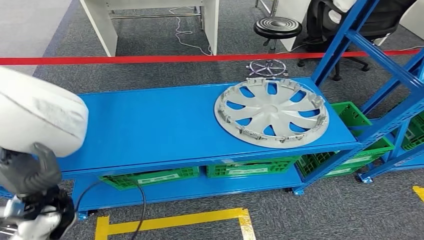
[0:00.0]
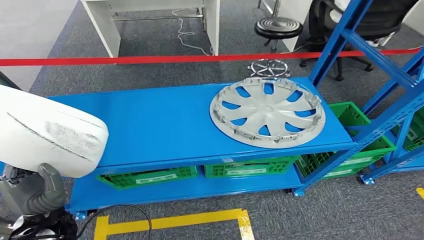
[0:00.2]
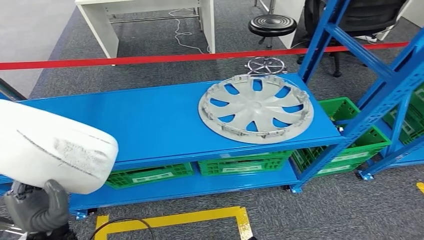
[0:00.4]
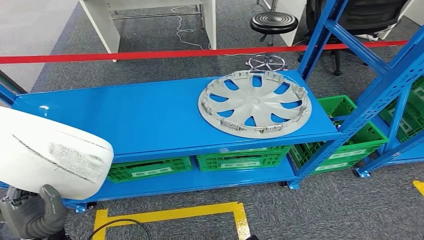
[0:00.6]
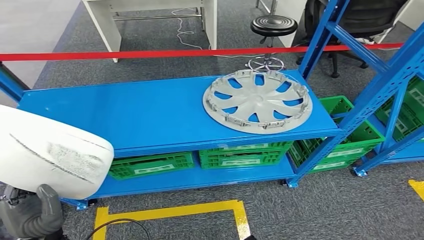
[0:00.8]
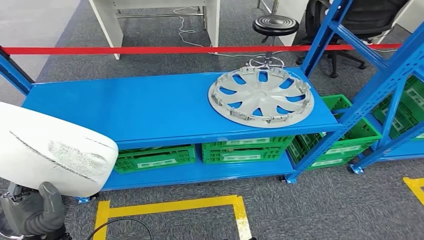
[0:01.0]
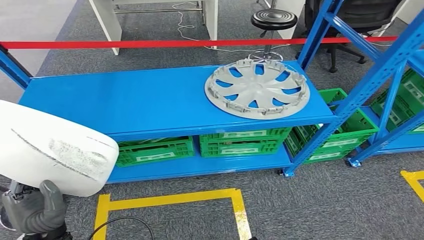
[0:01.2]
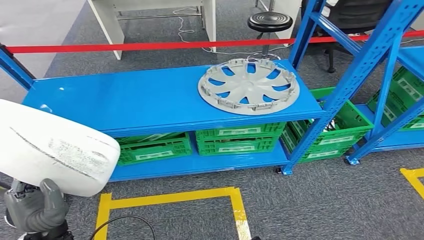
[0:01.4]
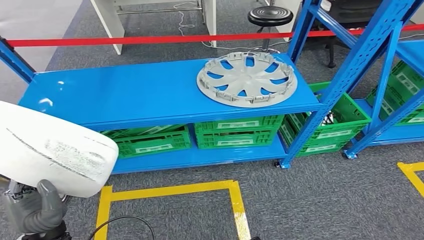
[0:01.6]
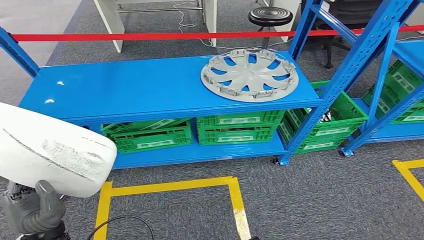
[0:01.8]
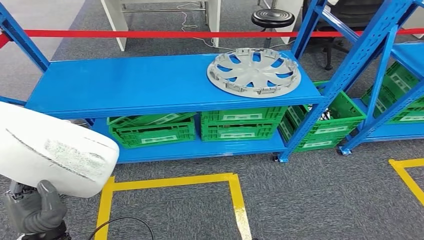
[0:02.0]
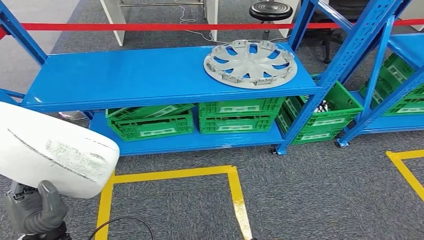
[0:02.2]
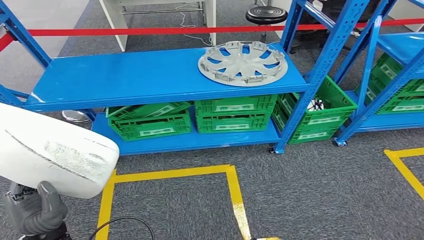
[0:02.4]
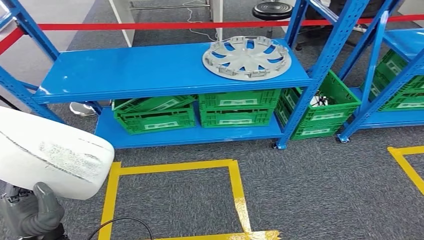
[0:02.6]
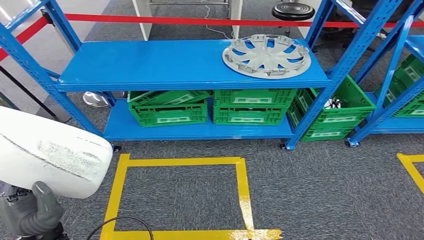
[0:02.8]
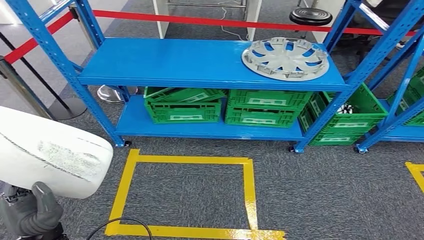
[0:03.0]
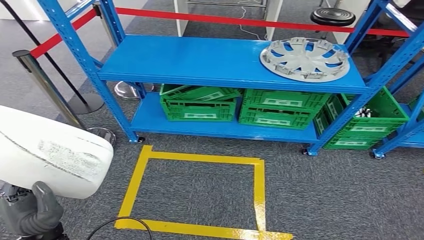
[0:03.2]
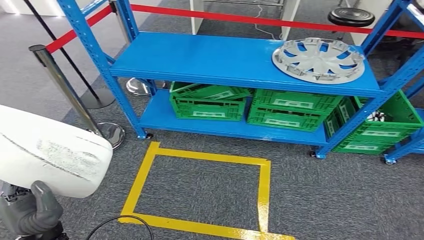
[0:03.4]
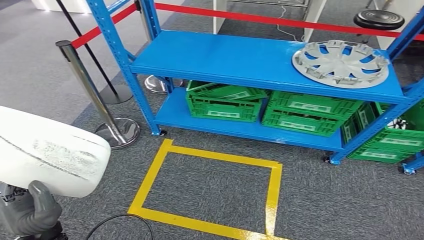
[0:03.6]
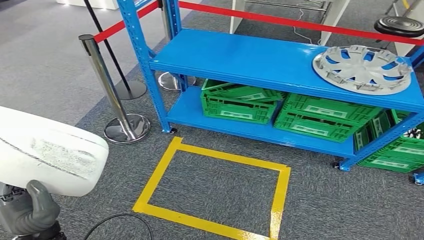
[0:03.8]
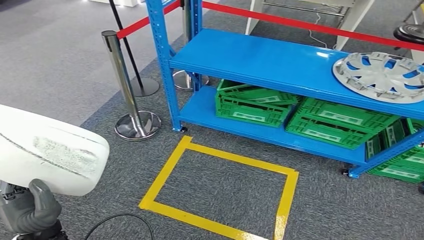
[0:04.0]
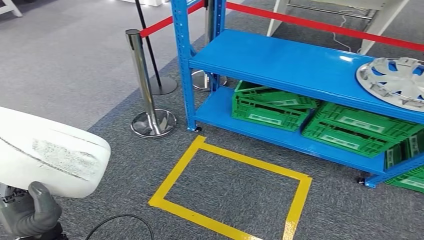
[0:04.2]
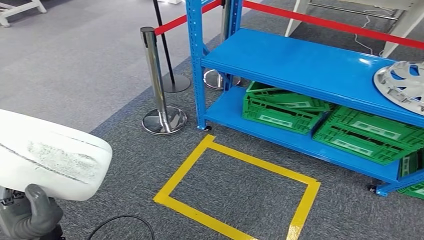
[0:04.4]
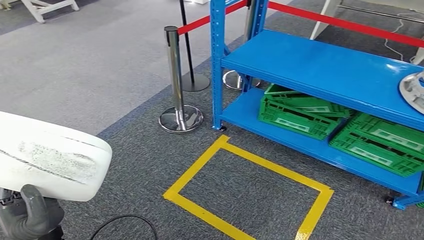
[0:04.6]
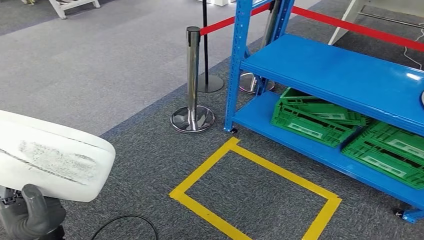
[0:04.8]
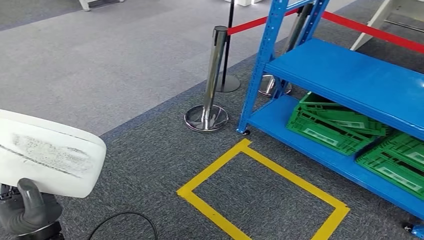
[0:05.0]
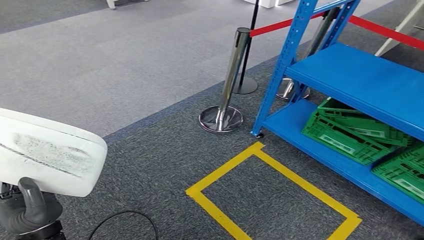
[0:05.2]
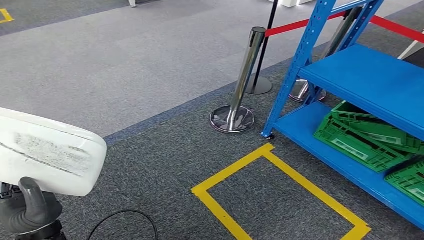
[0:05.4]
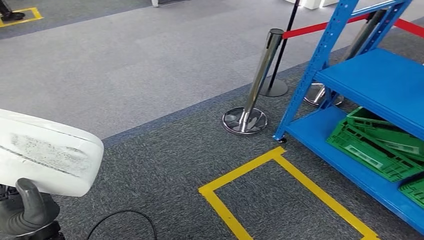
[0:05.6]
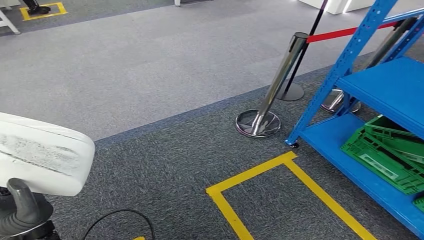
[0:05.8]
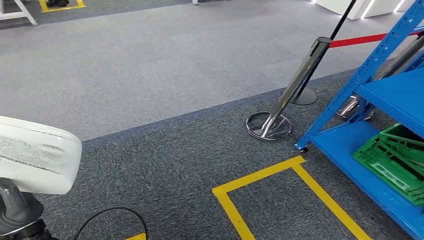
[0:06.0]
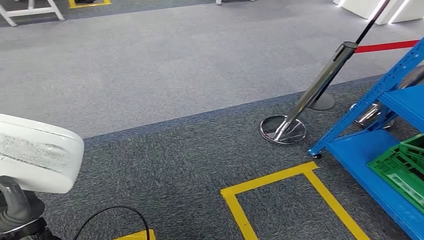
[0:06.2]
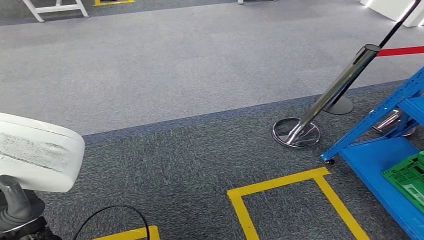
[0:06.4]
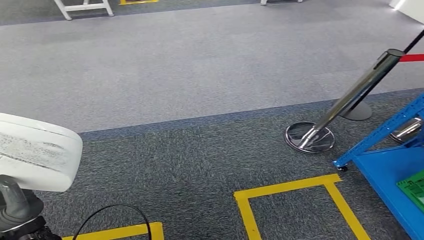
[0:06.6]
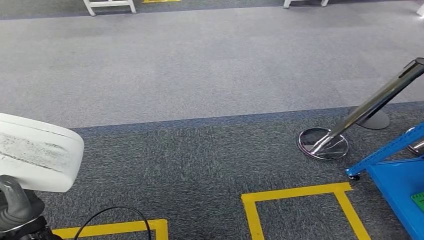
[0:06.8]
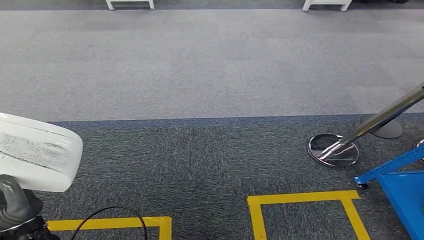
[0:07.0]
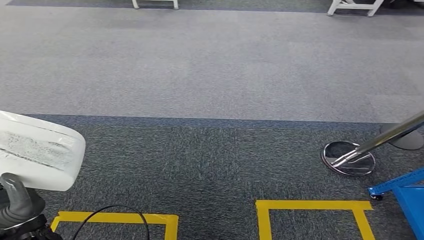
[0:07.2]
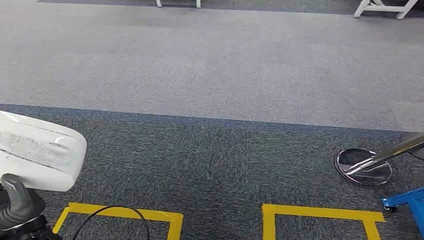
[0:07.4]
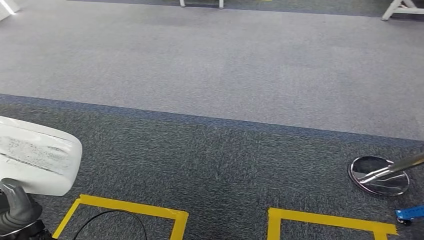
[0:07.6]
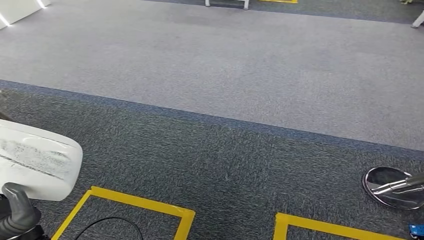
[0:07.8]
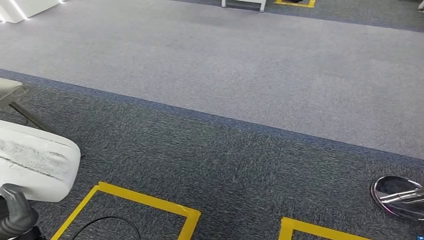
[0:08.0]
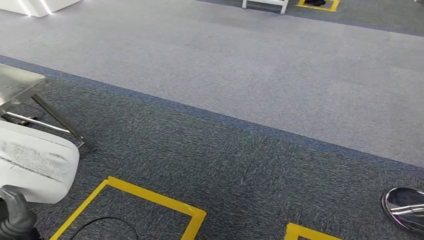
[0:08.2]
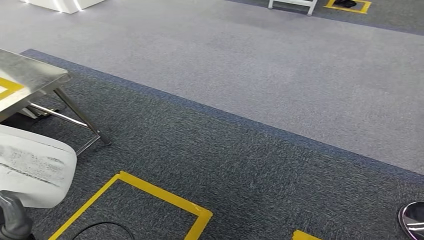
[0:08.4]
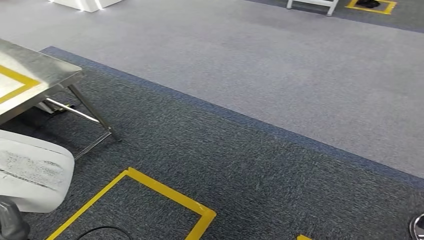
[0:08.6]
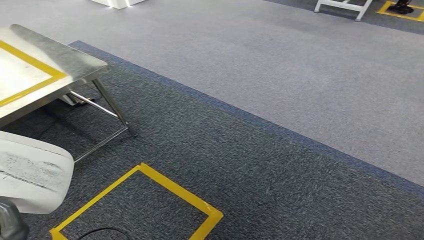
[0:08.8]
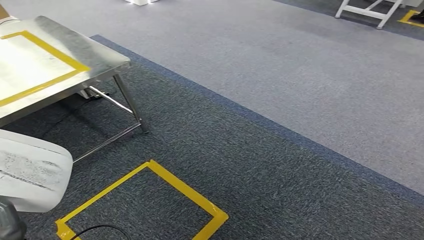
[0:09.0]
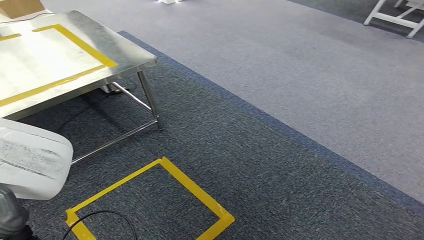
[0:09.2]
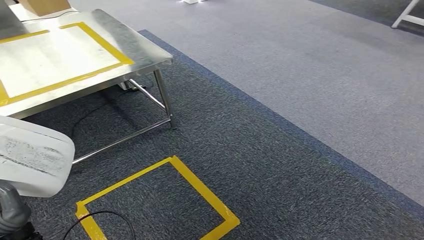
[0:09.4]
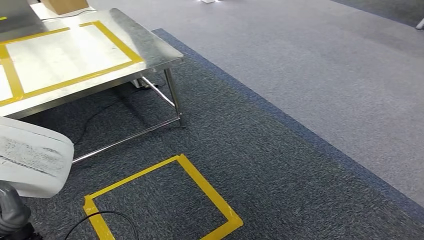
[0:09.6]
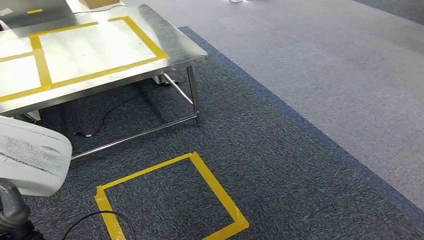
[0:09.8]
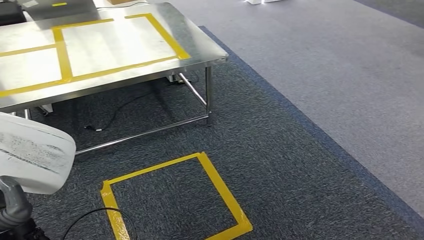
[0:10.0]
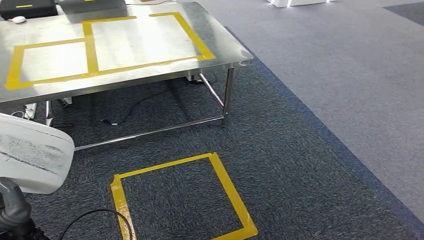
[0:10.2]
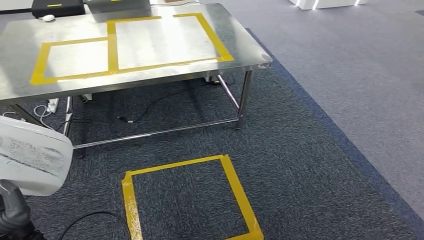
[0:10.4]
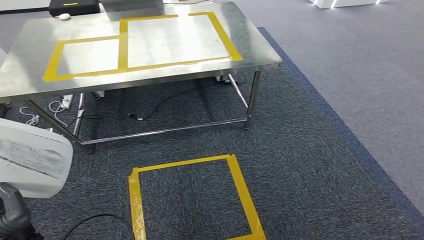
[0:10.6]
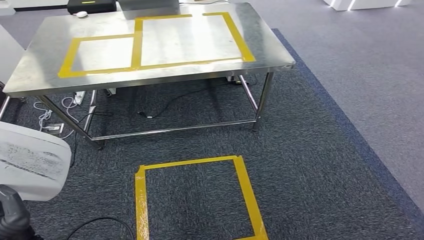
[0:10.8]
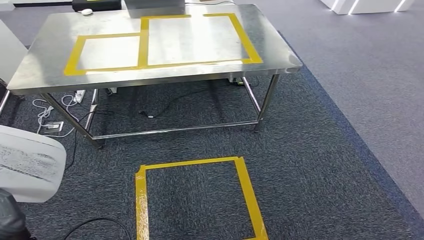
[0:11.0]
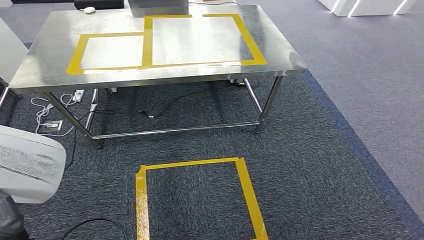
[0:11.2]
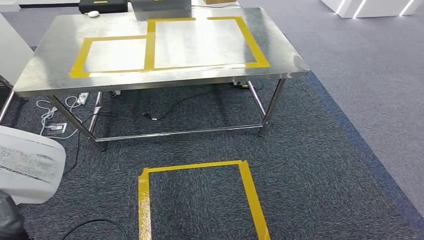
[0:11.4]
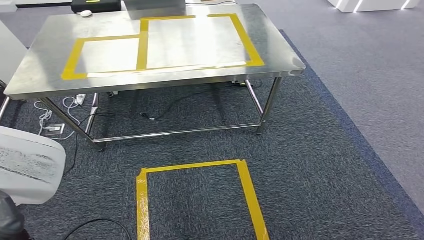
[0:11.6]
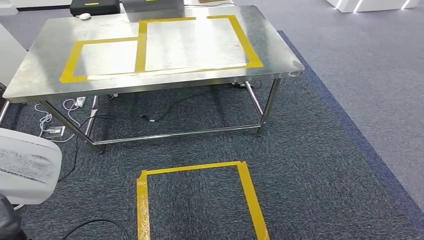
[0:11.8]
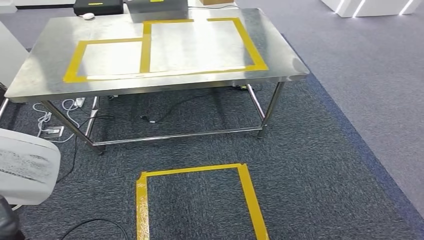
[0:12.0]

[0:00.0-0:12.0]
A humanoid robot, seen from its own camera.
Step, 0:00.0 to 0:02.0: Pick up the small component from the shelf.

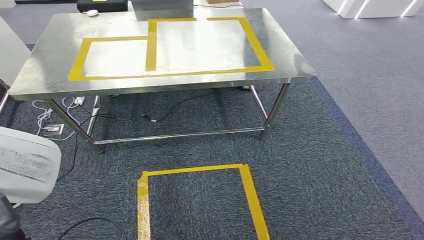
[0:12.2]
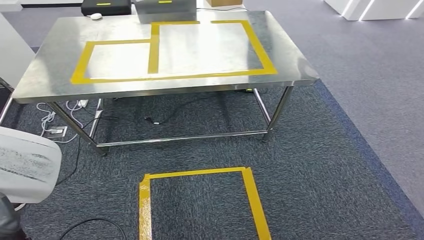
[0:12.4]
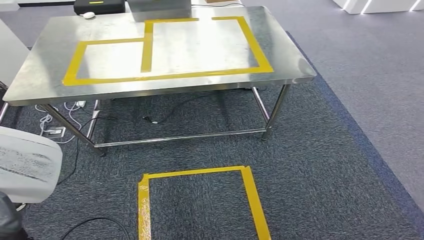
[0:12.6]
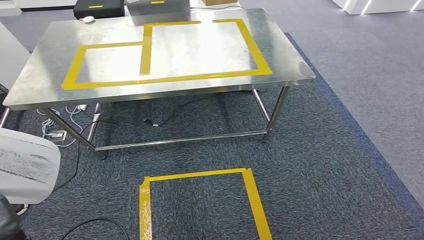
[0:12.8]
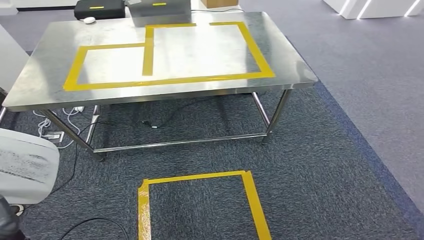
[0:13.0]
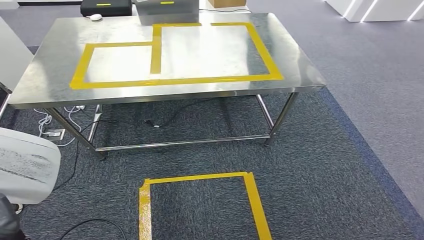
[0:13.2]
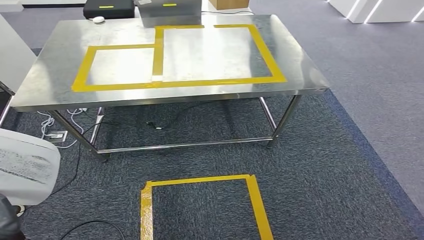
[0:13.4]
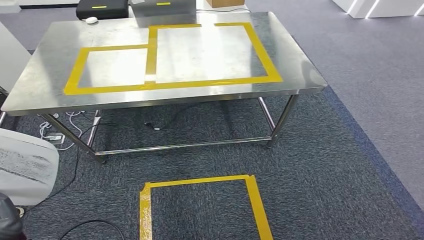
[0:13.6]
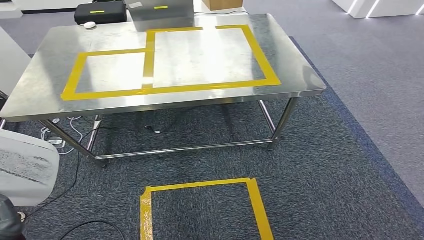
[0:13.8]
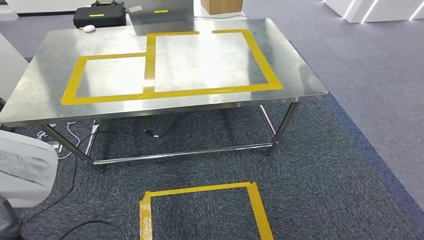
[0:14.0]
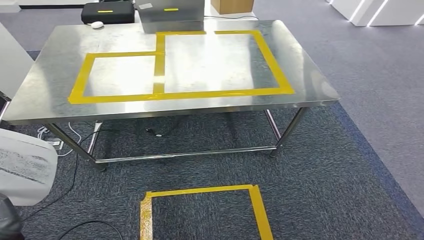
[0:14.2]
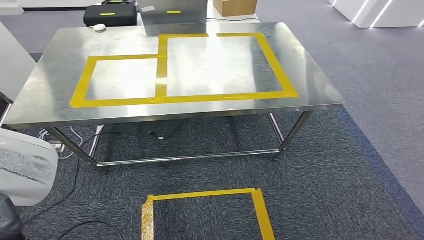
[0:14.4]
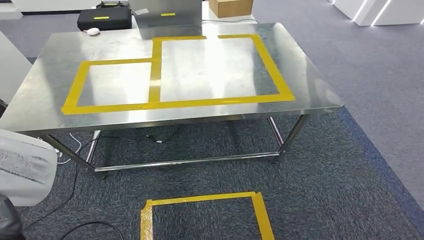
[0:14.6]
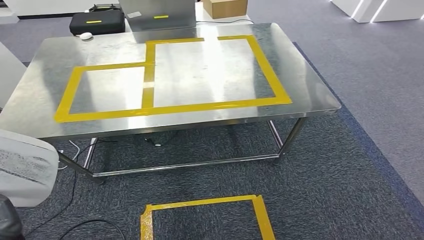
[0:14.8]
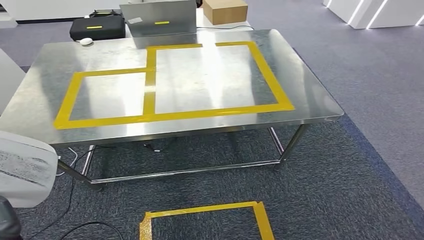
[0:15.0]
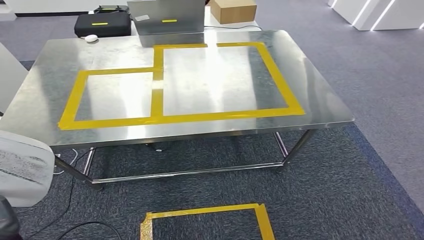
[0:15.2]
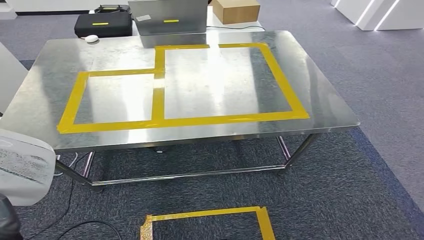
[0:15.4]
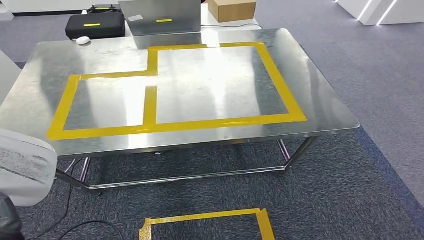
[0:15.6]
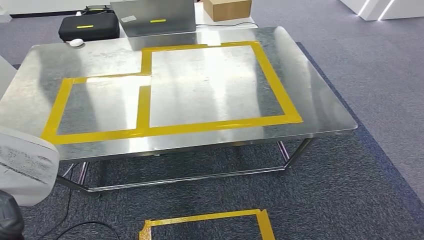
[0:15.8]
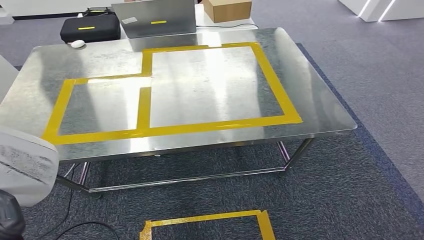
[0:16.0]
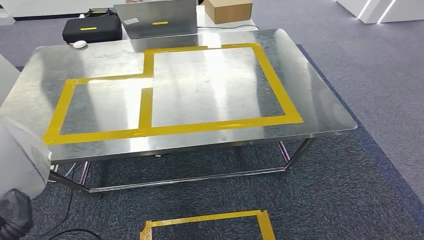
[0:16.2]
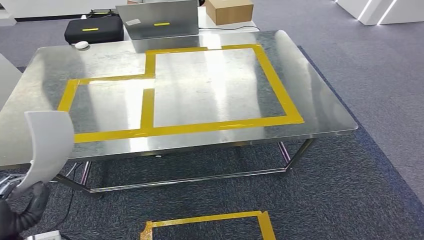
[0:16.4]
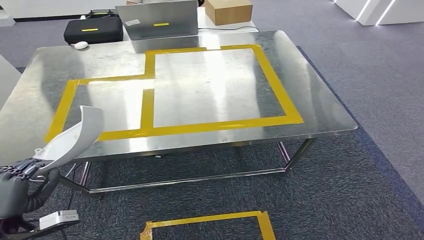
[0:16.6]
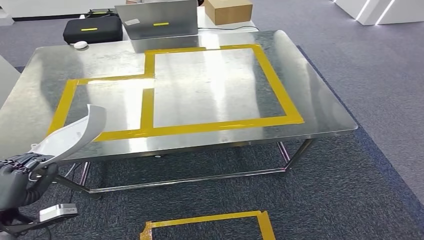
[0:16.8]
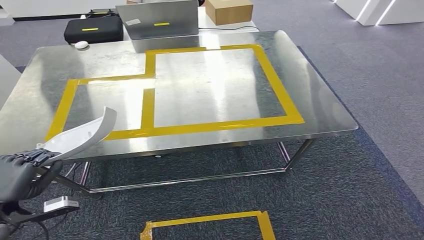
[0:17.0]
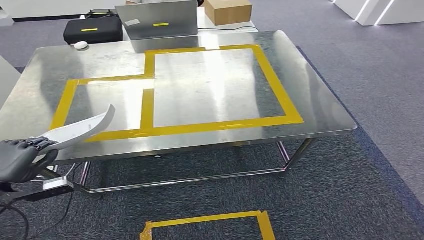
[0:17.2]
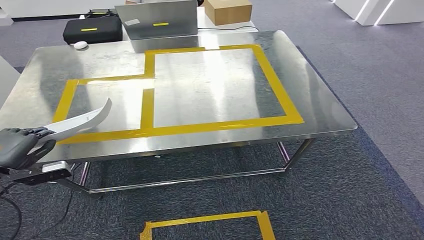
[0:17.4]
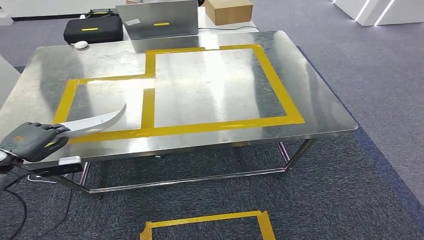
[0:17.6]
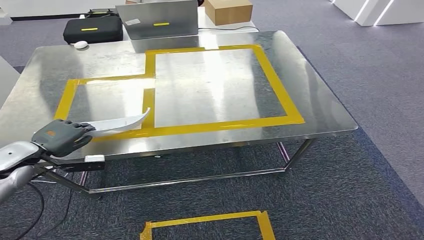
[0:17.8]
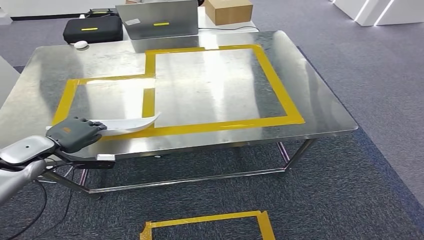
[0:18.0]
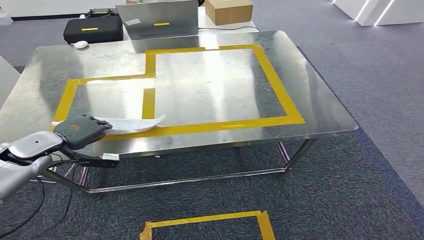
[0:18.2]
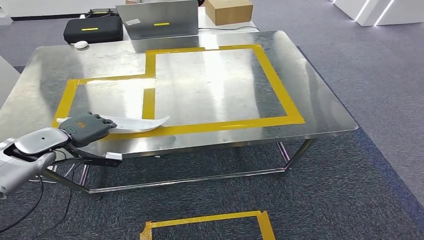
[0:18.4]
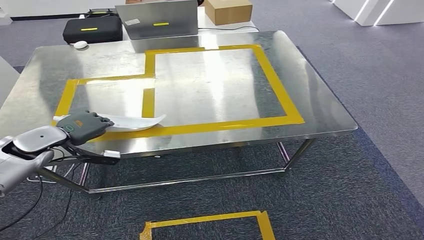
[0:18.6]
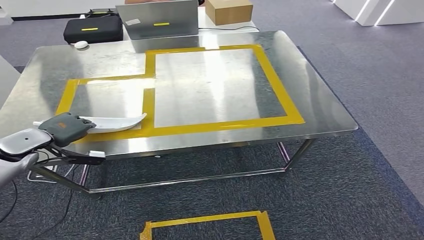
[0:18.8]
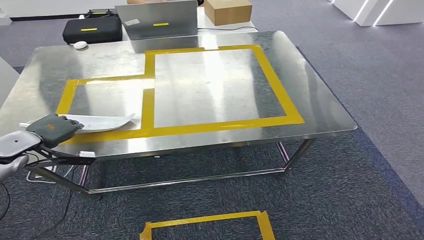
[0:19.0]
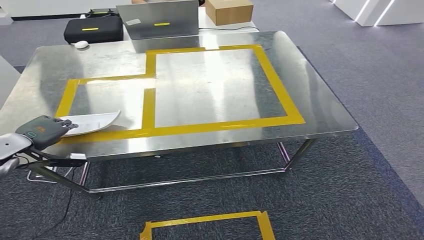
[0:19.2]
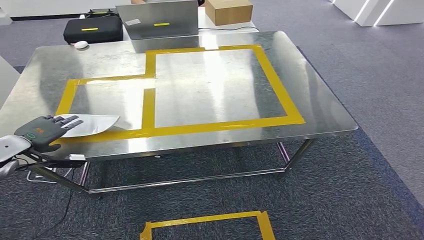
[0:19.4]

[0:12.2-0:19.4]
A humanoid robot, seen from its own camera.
0:16.6 to 0:18.0: The left hand is displaced forward by some 20 cm.
0:18.0 to 0:19.4: The left hand moves to the left, some 5 cm.
